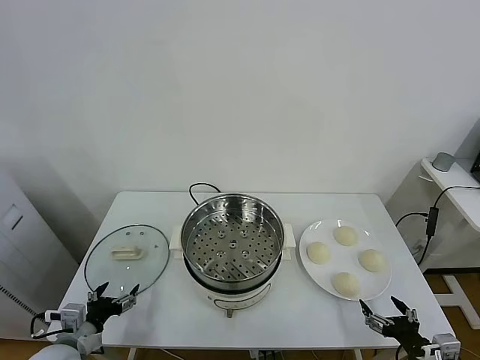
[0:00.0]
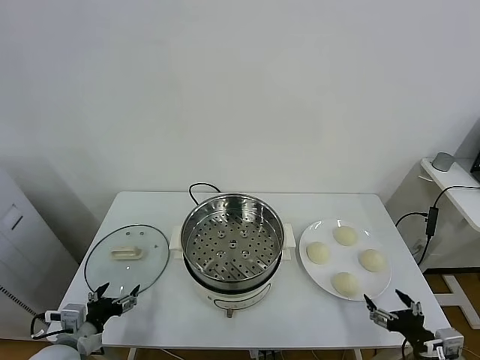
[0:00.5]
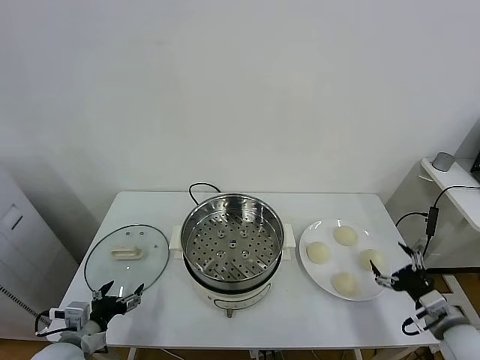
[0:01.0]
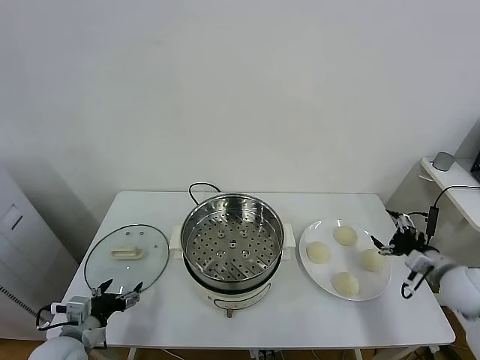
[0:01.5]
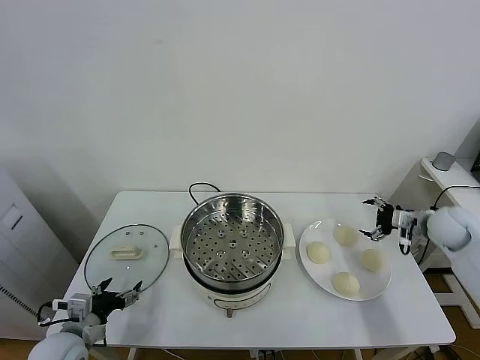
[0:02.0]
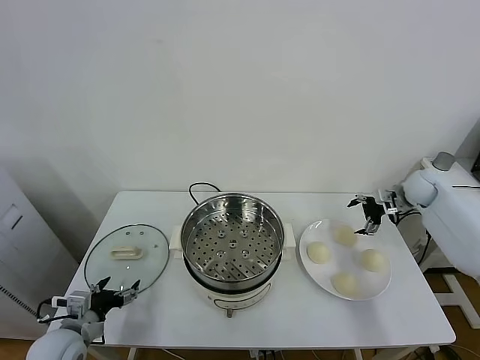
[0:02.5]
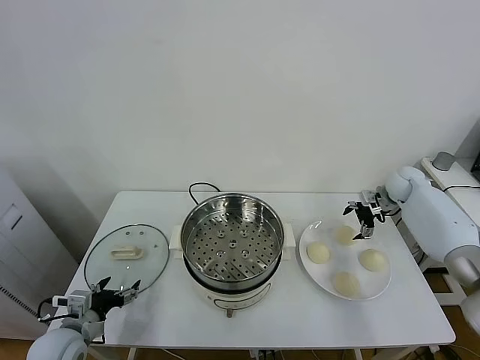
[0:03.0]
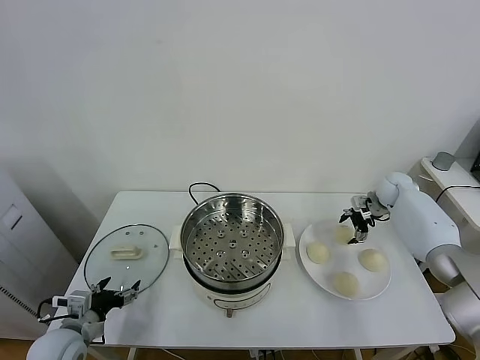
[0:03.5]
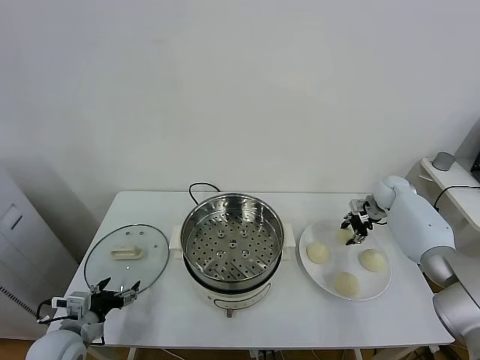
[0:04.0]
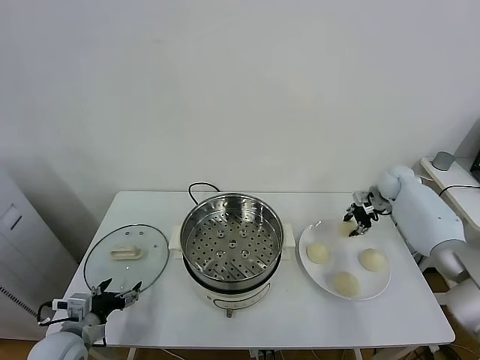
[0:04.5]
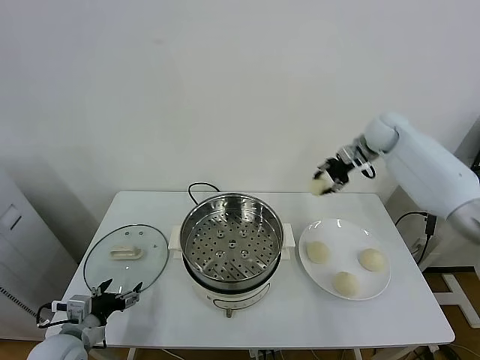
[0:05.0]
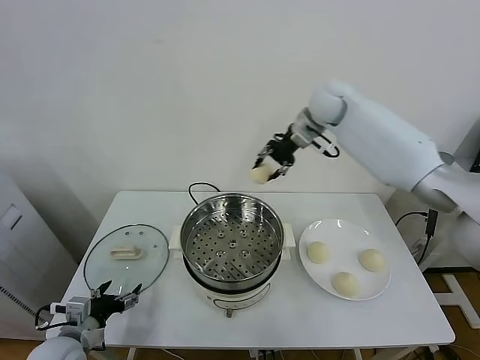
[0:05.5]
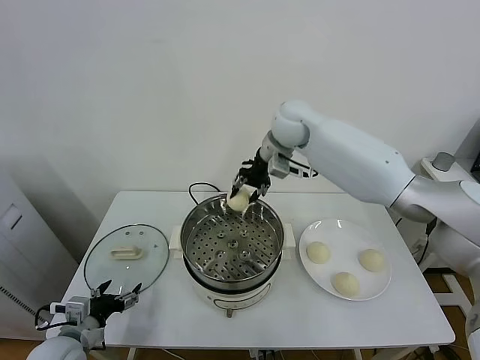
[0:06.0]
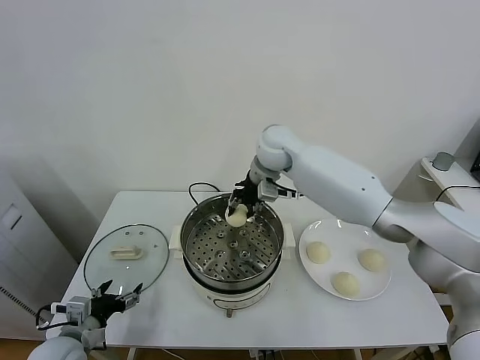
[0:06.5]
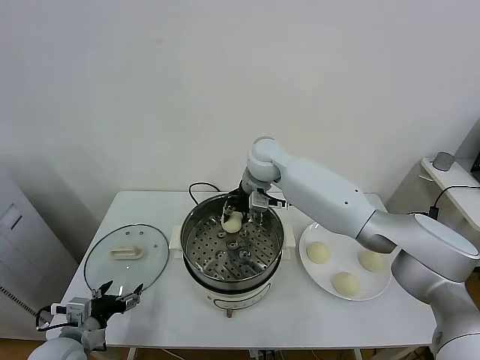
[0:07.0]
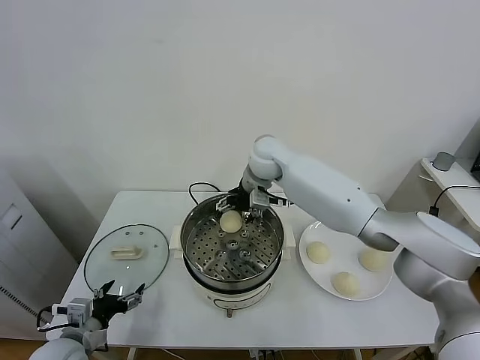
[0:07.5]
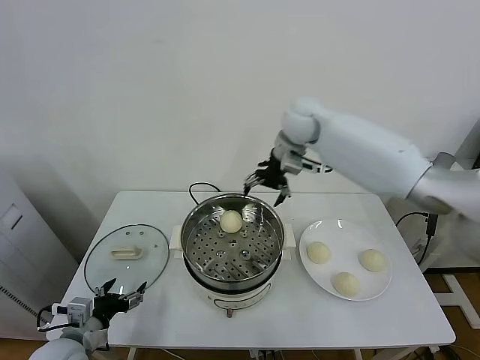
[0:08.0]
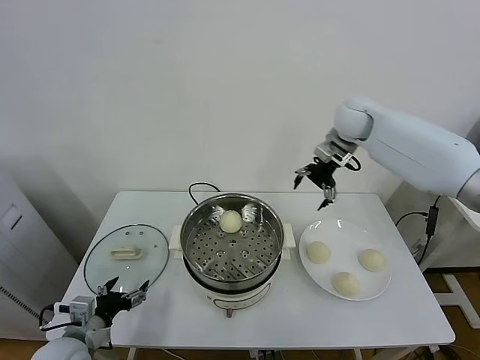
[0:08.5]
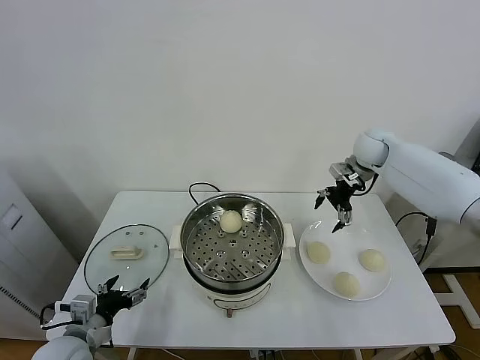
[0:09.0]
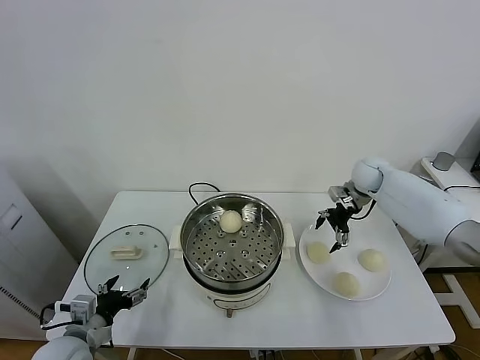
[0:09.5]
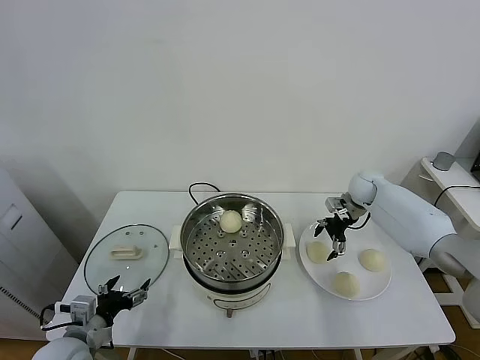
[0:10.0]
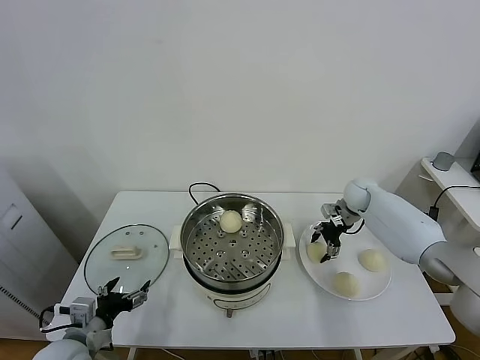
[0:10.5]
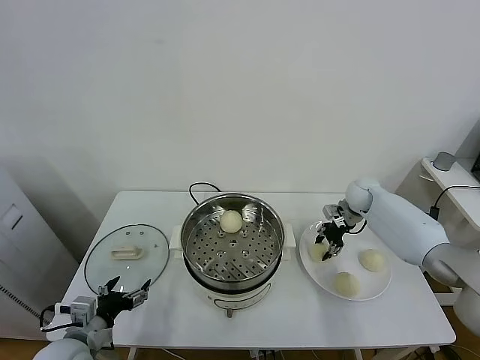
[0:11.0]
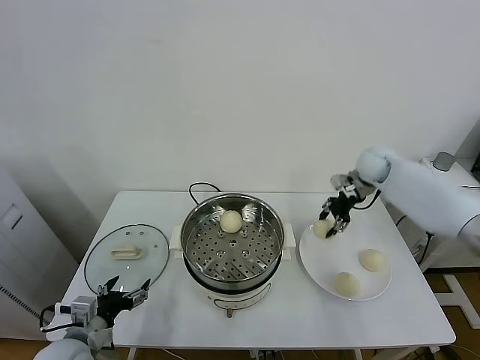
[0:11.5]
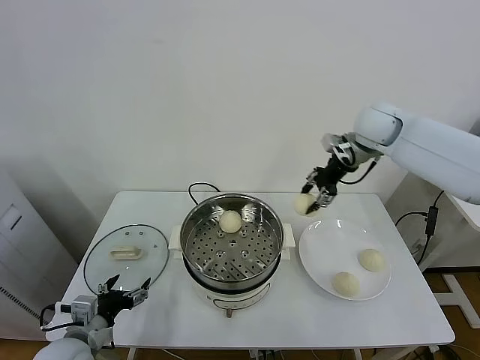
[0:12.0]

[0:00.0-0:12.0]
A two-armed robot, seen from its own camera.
Task of the whole recording: take steamed baozi put them in steamer.
Step, 0.0 to 4.0 s: Grasp the baozi in the plate with right gripper.
Step, 4.5 to 7.5 s: Place the baozi on the steamer with right gripper.
Step, 8.0 to 10.5 s: Grasp the baozi in the plate with right gripper.
2.0 to 4.0 s: The right gripper heads forward, downward and to the left, covering roughly 15 cm, and closes its fingers.
4.0 to 6.0 s: The right gripper goes approximately 40 cm to the left and upward.
6.0 to 8.0 s: The right gripper heads to the right, covering roughly 5 cm, and opens.
8.0 to 10.0 s: The right gripper goes some 30 cm downward and to the right.
10.0 to 12.0 s: The right gripper moves upward, approximately 25 cm, and closes up.

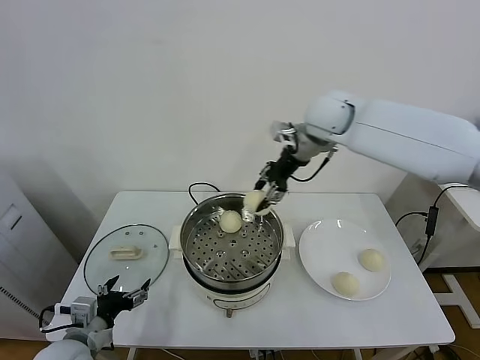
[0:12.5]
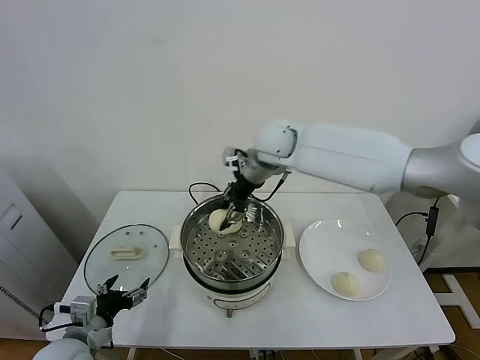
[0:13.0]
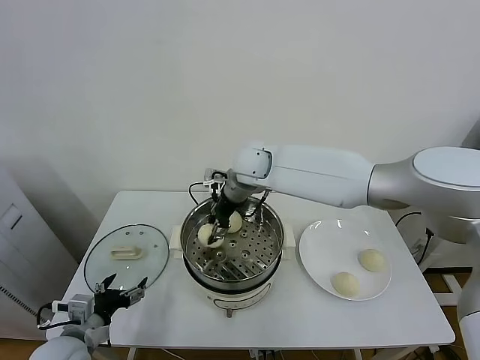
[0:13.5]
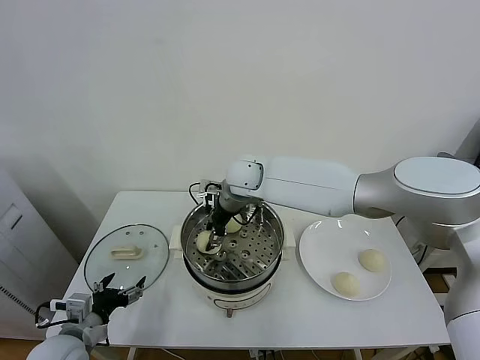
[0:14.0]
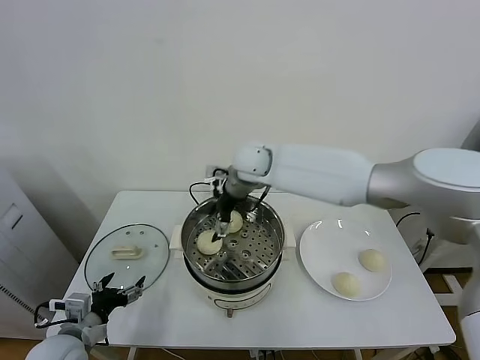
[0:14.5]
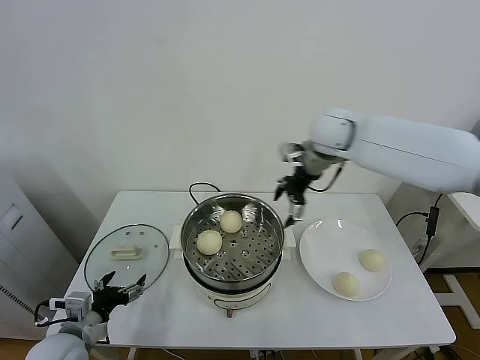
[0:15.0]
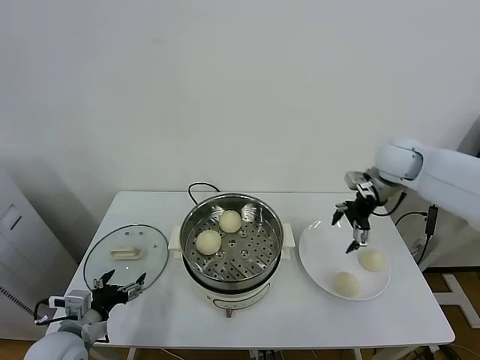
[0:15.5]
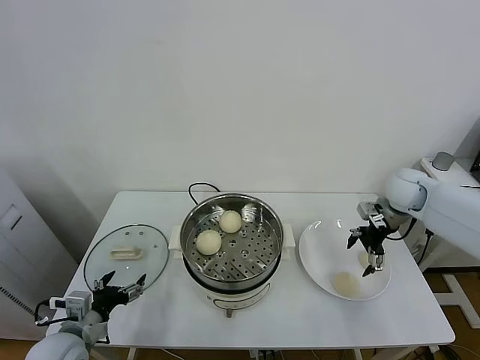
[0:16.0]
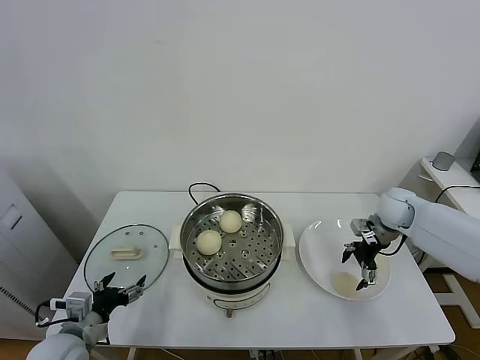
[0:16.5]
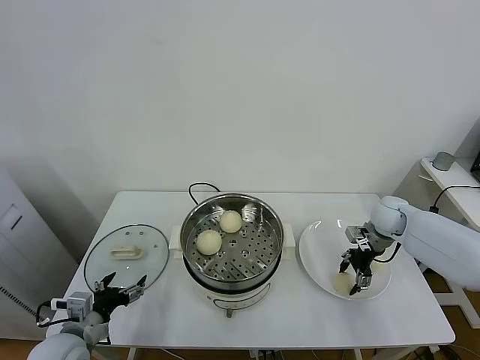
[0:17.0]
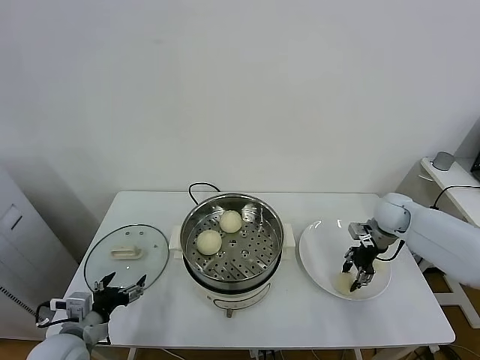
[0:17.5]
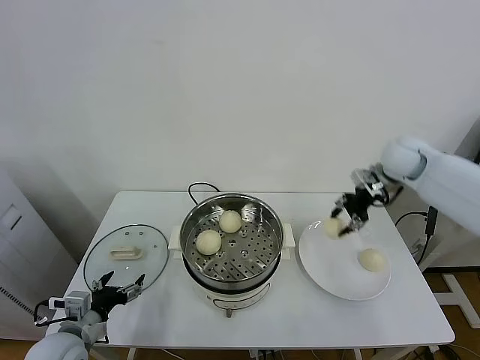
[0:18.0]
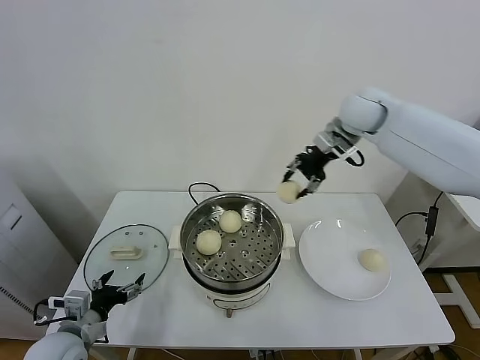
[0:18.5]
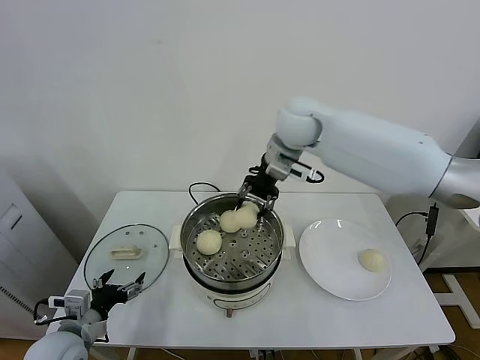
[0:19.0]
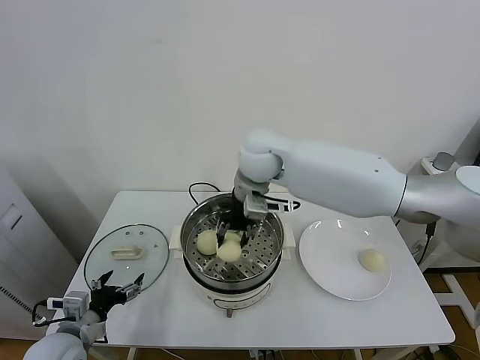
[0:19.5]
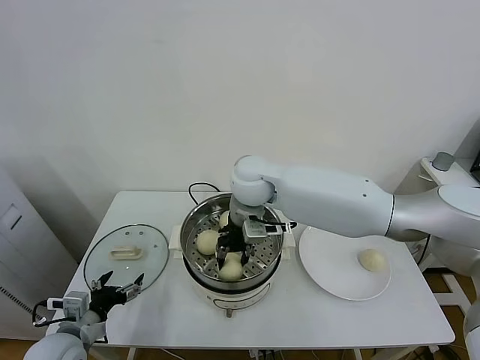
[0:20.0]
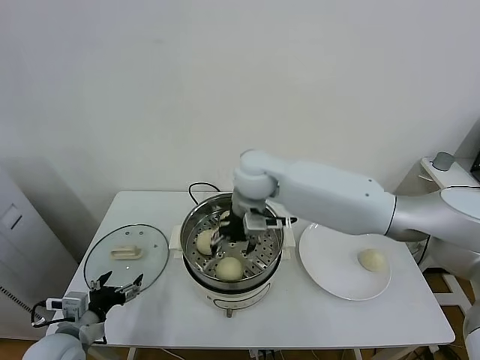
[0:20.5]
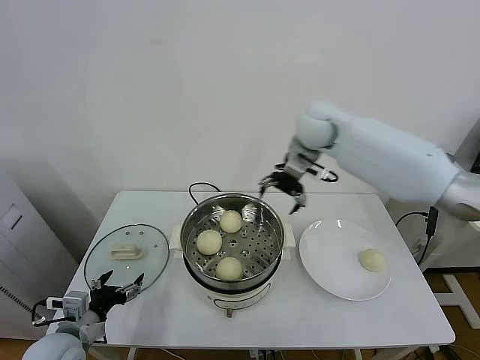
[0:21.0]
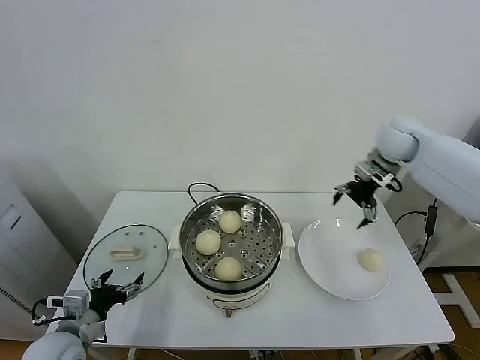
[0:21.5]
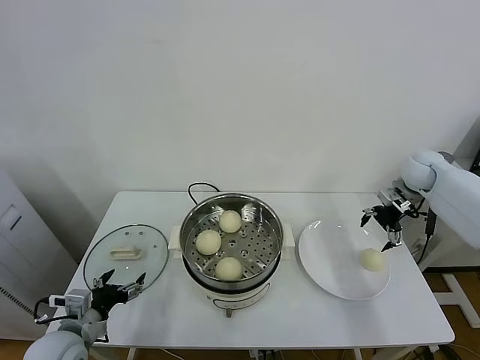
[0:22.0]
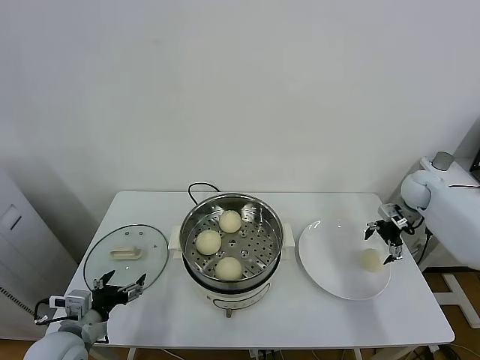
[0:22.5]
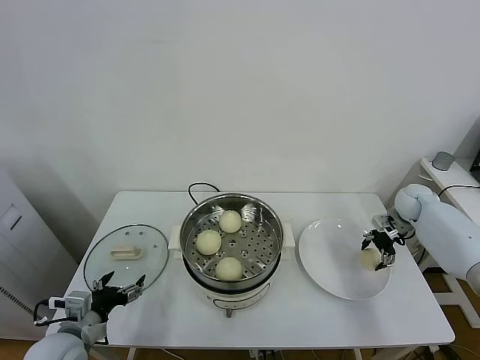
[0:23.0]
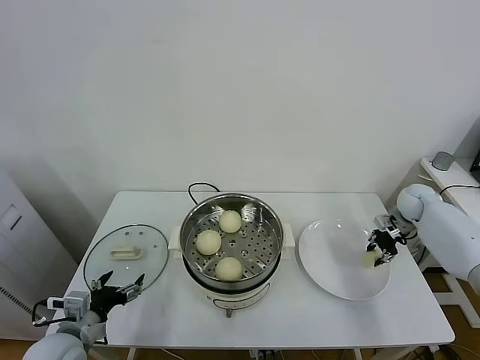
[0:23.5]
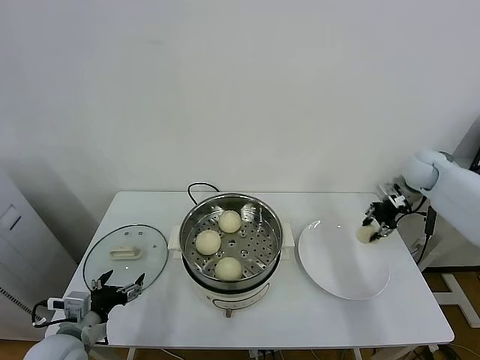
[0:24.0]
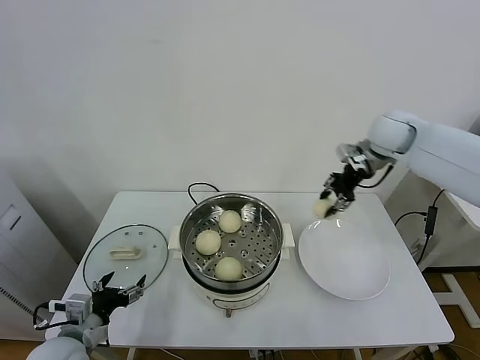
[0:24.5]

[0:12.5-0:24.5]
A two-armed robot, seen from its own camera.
Task of the whole recording: take steamed baozi put them in steamer.
Step, 15.0 to 17.5 s: Grasp the baozi in the plate with right gripper.
Step, 18.0 to 20.0 s: Place the baozi on the steamer with right gripper.
Step, 21.0 to 23.0 s: Grasp the baozi in the plate with right gripper.
12.5 to 14.5 s: The right gripper shifts some 15 cm to the left and downward, and opens up.
14.5 to 16.5 s: The right gripper shifts approximately 35 cm to the right and downward.
16.5 to 18.5 s: The right gripper shifts some 30 cm upward and to the left, and closes up.
18.5 to 20.5 s: The right gripper shifts about 20 cm to the left and downward, and opens its fingers.
20.5 to 22.5 s: The right gripper is displaced to the right by about 40 cm.
22.5 to 24.5 s: The right gripper is displaced upward and to the left by some 25 cm, and closes its fingers.

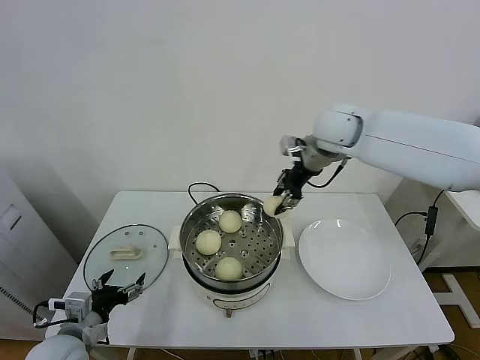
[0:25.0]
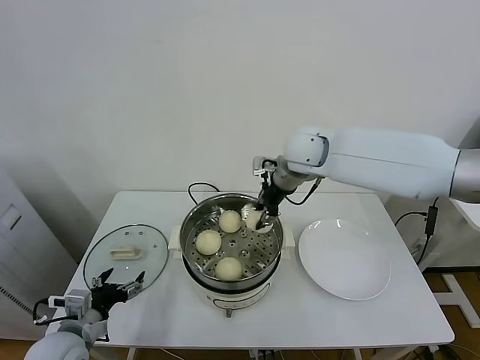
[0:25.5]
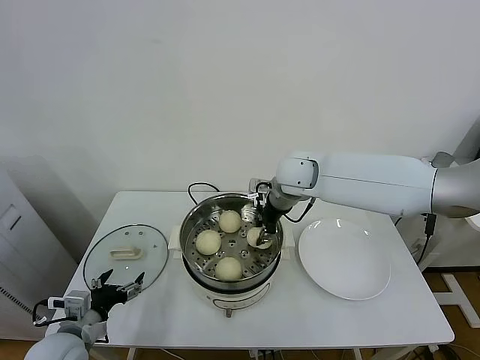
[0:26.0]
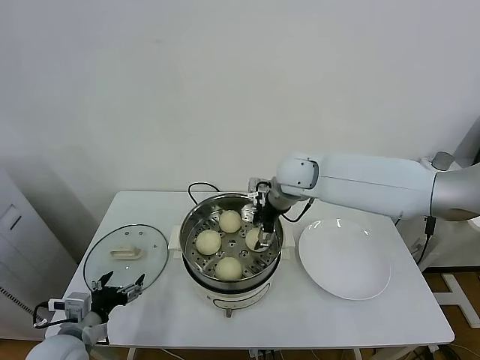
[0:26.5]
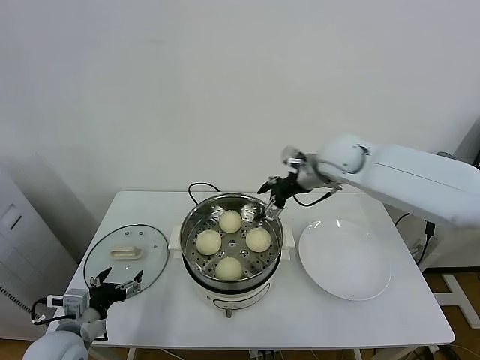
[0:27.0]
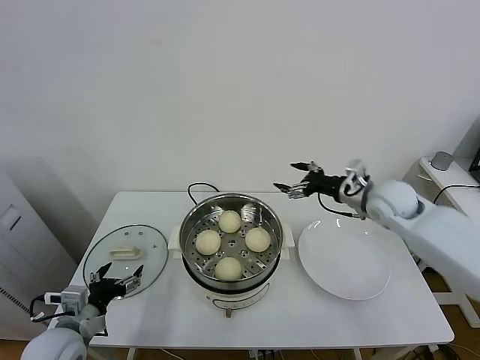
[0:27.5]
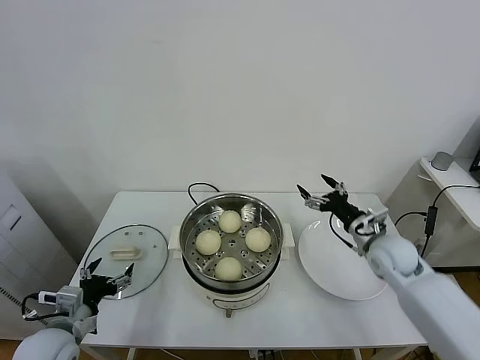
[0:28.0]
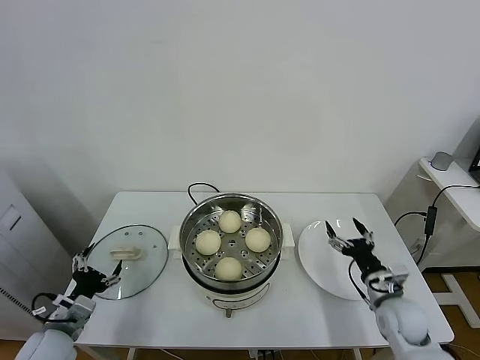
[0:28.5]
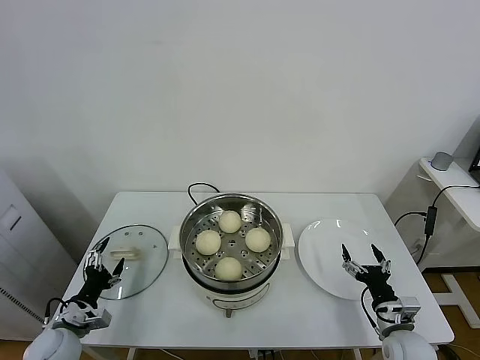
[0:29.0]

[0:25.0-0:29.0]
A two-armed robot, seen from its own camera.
Task of the whole recording: take steamed baozi put them in steamer.
25.0 to 27.0 s: The right gripper heads downward, covering roughly 5 cm, and opens up.
27.0 to 29.0 s: The left gripper moves downward and to the left, approximately 10 cm. The right gripper shifts about 50 cm downward, backward and to the right.
